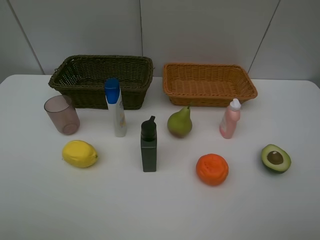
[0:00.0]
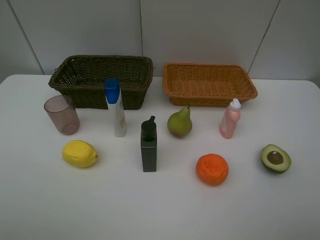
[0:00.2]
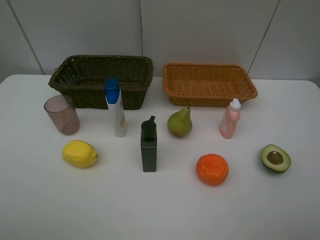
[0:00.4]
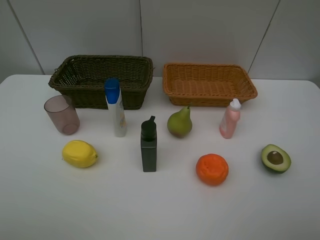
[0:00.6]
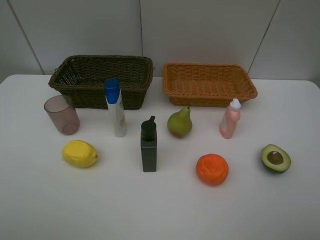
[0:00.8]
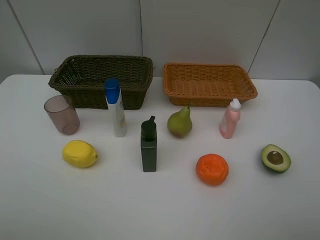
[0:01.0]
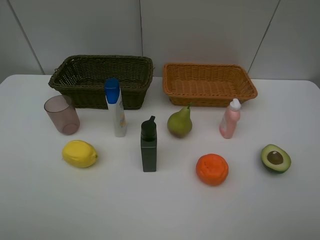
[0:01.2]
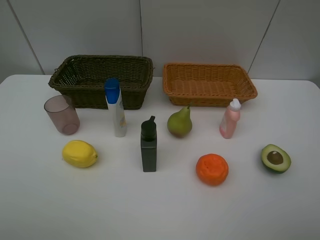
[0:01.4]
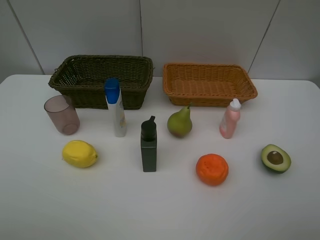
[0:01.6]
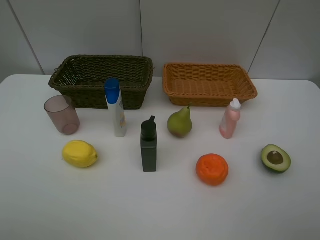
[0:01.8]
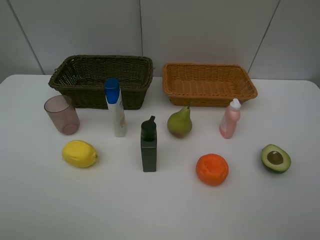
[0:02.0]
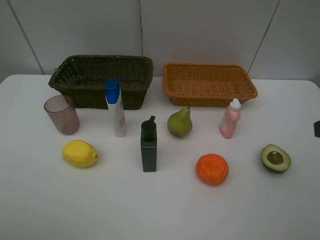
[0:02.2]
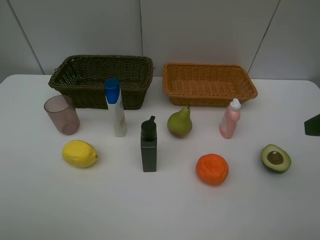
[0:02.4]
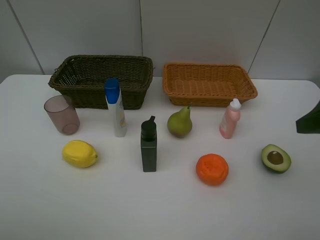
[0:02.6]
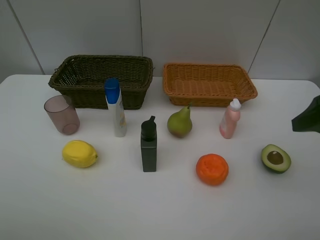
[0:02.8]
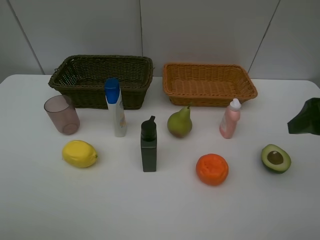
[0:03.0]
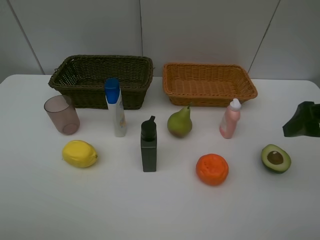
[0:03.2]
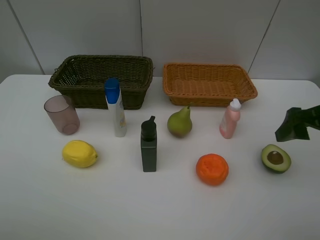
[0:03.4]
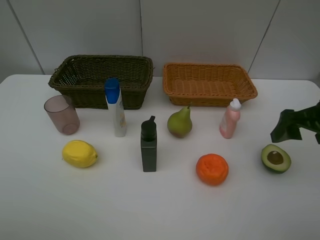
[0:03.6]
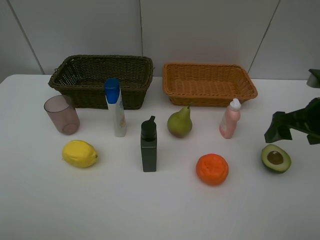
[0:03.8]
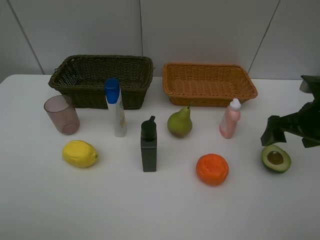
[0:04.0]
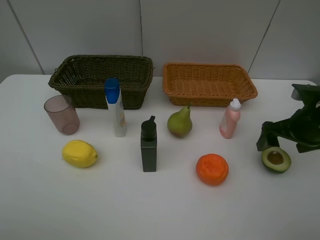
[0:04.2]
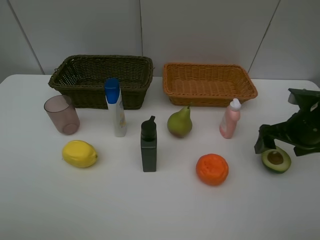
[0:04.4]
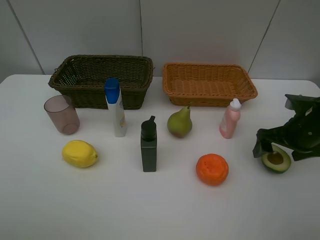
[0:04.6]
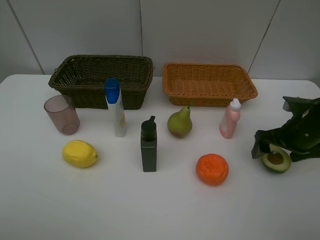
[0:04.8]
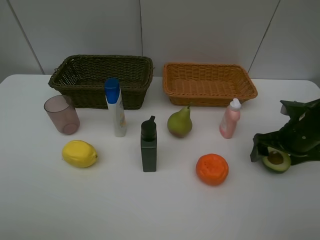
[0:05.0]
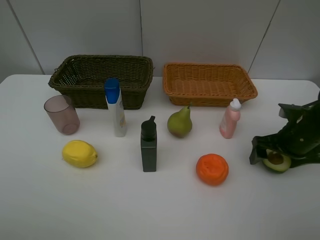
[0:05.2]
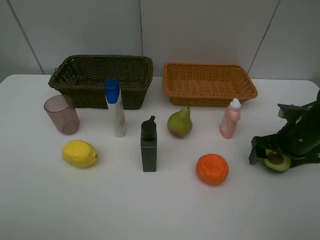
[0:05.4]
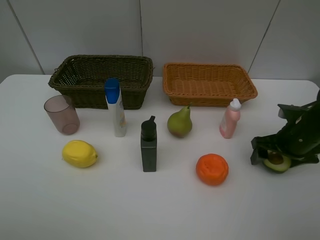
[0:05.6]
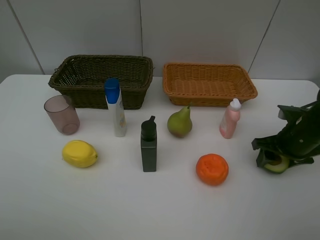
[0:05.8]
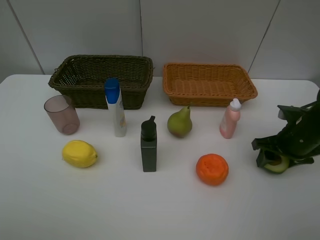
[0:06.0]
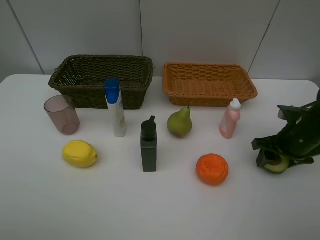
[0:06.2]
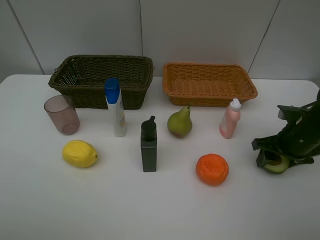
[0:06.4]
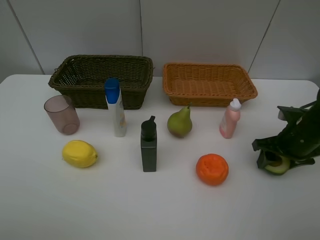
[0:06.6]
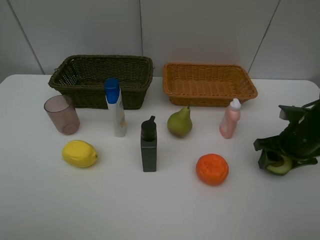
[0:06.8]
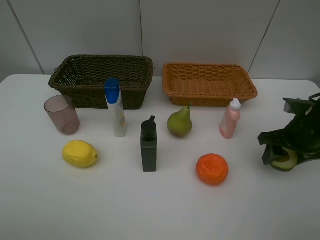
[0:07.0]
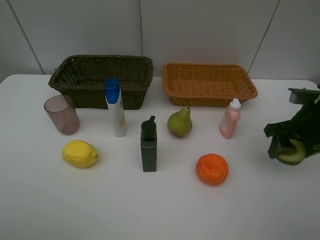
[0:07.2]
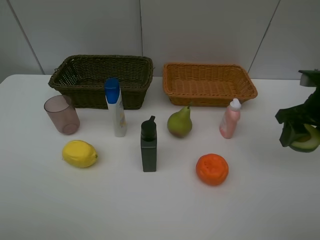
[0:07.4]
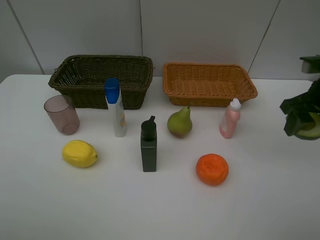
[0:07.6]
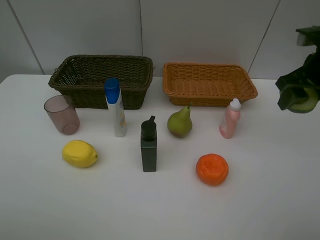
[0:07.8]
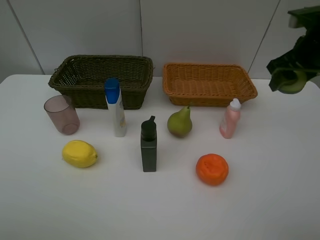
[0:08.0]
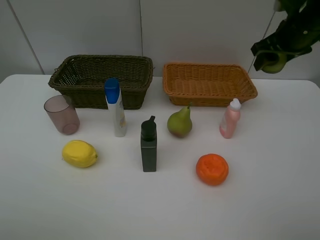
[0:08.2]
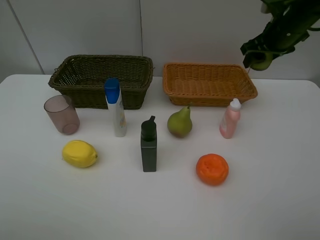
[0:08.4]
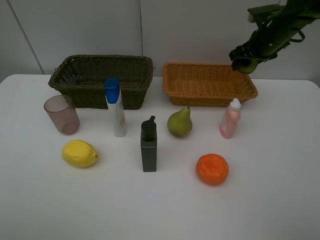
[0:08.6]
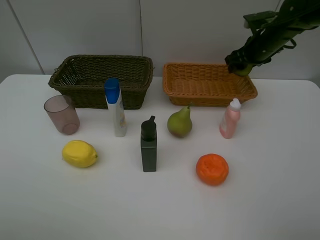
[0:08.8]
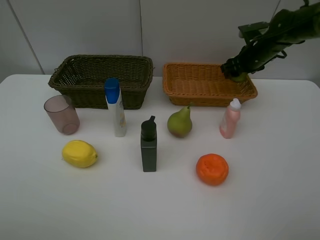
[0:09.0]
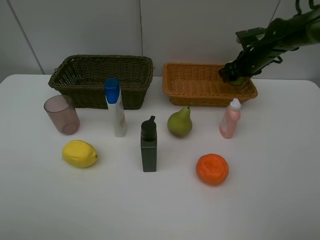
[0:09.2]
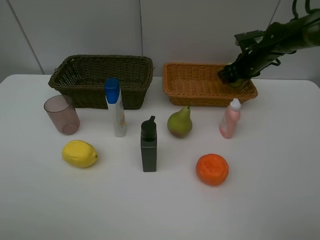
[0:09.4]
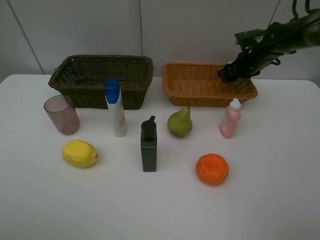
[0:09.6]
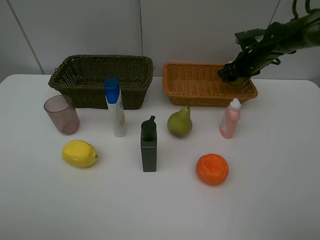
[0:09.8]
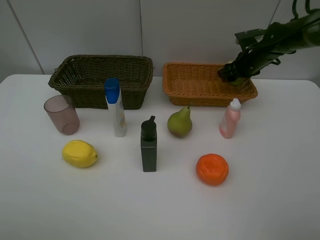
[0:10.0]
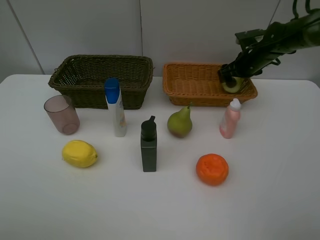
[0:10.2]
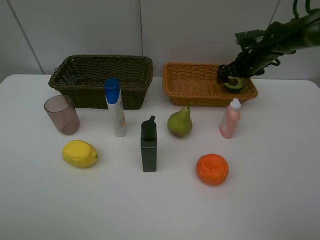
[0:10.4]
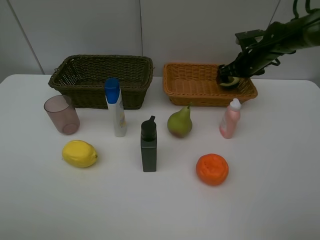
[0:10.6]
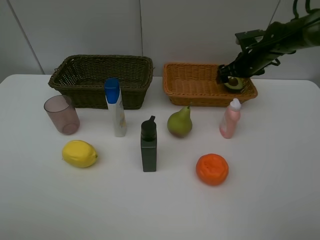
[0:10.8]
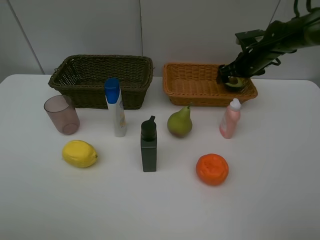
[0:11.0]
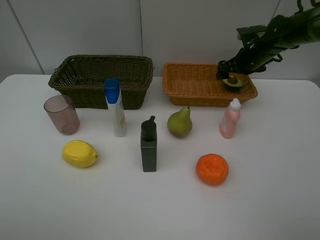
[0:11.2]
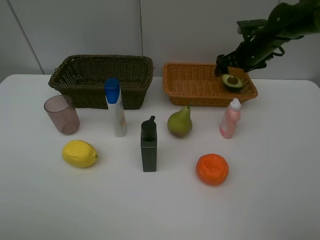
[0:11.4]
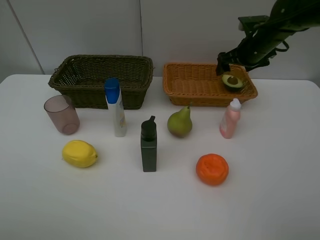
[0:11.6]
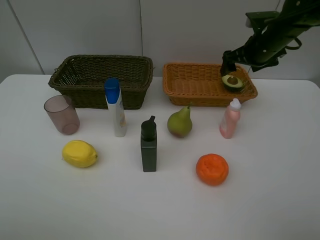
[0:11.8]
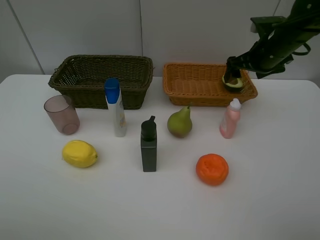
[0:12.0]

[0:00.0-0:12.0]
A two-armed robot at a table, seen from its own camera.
Task of the whole recording: Place multiple objects separately in different baskets.
Step, 0:00.0 to 0:07.0: Pick up the avocado with right gripper.
Step, 0:07.2 to 0:11.2: Place the avocado in the light basket with right gripper.
0:01.6 to 0:03.0: The right gripper goes about 15 cm forward.
0:03.0 to 0:04.4: The right gripper travels downward and forward by approximately 15 cm.
0:04.4 to 0:06.0: The right gripper closes its fingers.
0:06.0 to 0:07.6: The right gripper goes approximately 10 cm upward.
0:07.6 to 0:09.0: The right gripper travels forward by roughly 20 cm.
0:09.0 to 0:10.4: The right gripper opens up.
0:10.4 to 0:12.0: The right gripper goes about 10 cm backward and upward.

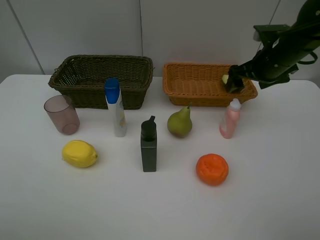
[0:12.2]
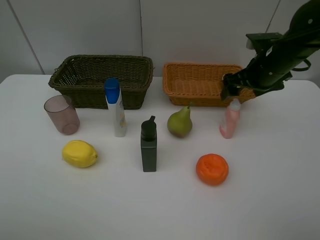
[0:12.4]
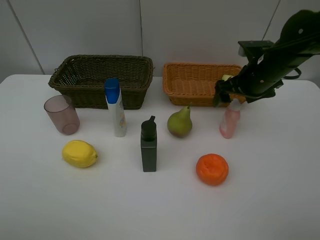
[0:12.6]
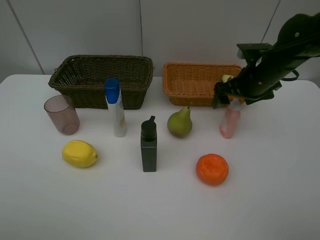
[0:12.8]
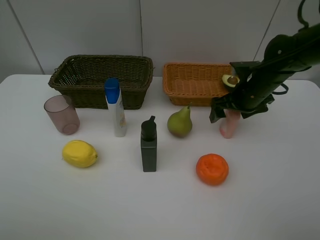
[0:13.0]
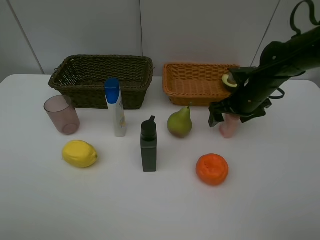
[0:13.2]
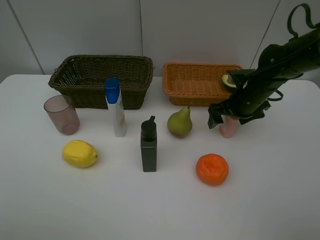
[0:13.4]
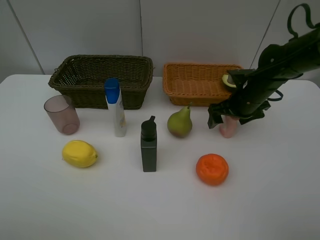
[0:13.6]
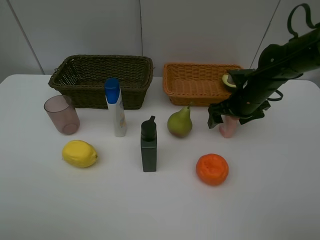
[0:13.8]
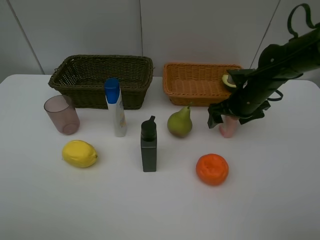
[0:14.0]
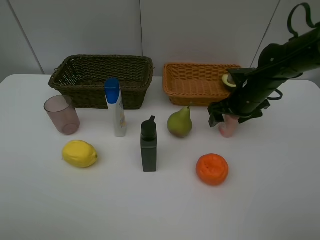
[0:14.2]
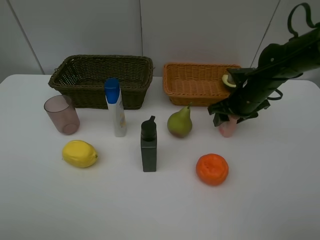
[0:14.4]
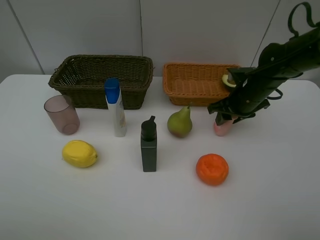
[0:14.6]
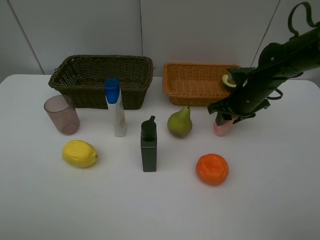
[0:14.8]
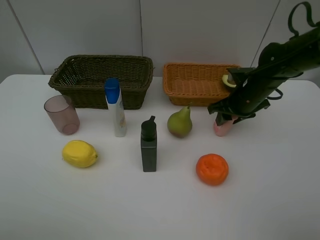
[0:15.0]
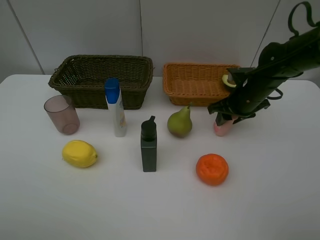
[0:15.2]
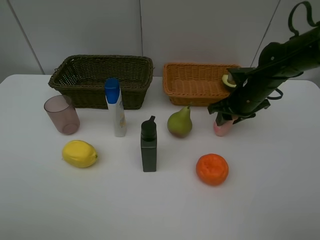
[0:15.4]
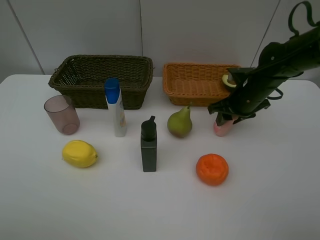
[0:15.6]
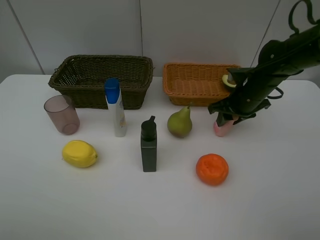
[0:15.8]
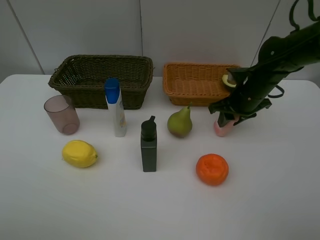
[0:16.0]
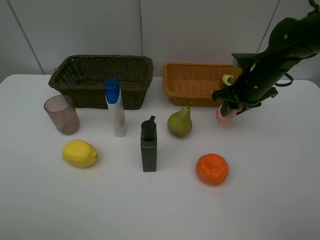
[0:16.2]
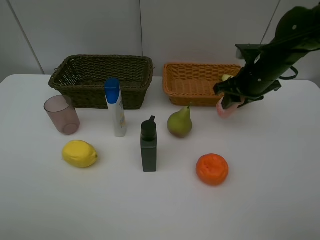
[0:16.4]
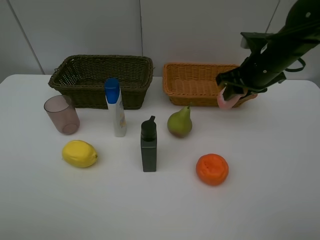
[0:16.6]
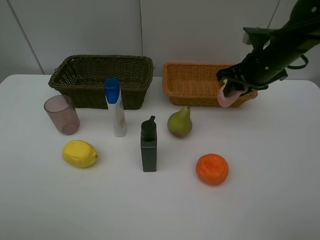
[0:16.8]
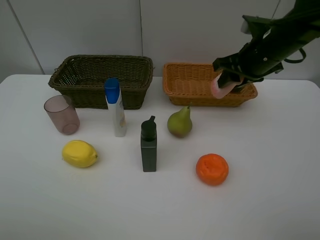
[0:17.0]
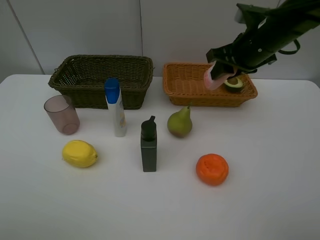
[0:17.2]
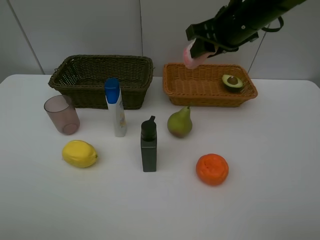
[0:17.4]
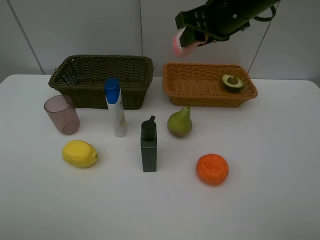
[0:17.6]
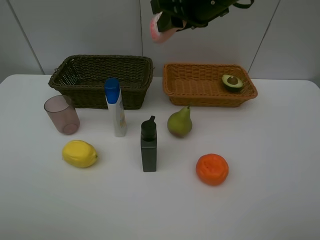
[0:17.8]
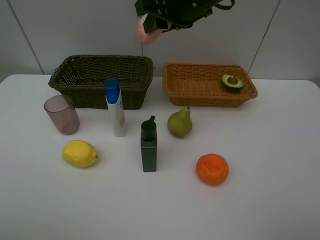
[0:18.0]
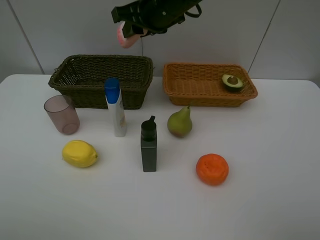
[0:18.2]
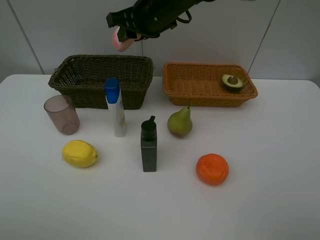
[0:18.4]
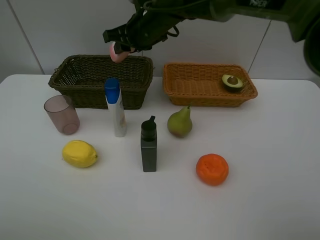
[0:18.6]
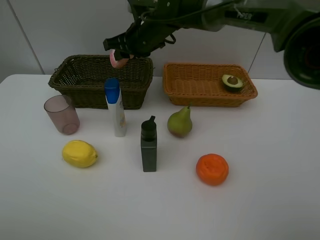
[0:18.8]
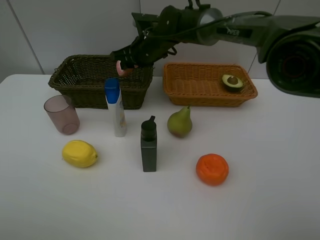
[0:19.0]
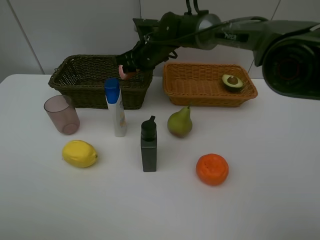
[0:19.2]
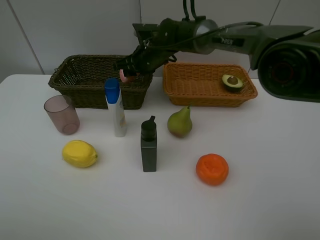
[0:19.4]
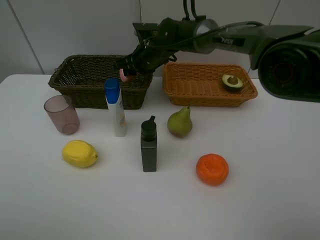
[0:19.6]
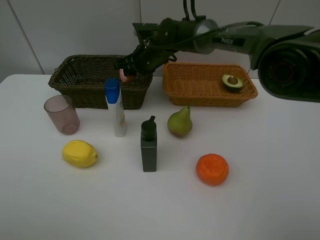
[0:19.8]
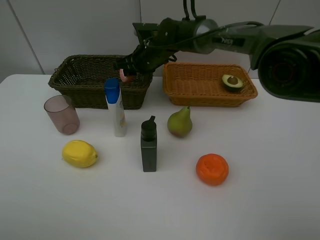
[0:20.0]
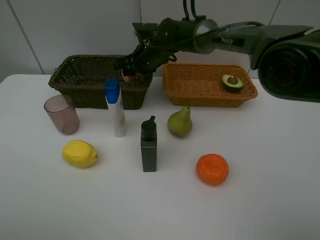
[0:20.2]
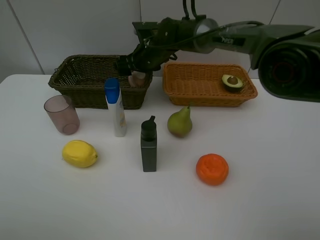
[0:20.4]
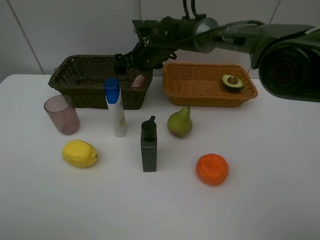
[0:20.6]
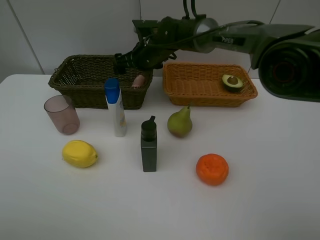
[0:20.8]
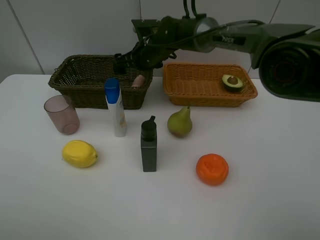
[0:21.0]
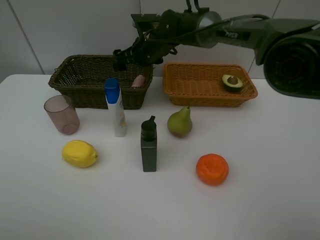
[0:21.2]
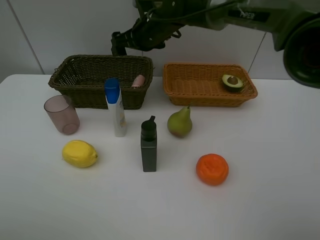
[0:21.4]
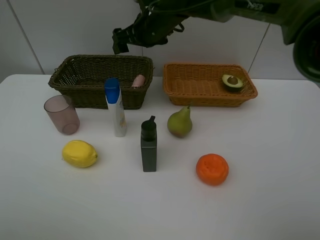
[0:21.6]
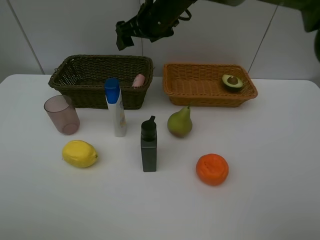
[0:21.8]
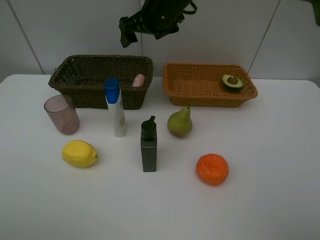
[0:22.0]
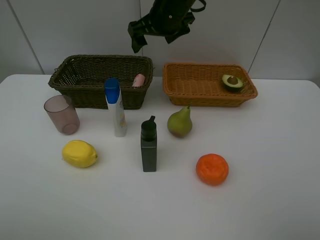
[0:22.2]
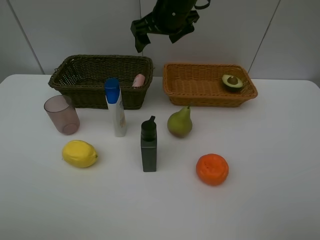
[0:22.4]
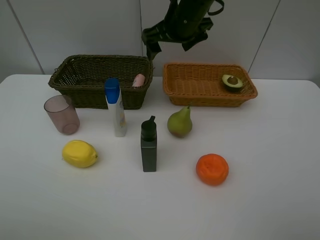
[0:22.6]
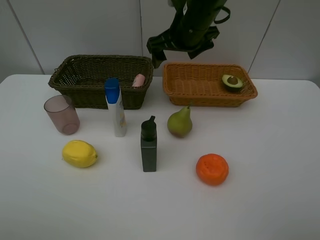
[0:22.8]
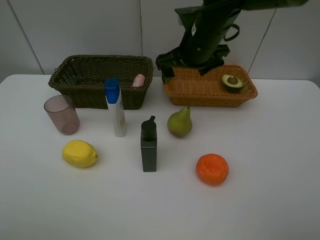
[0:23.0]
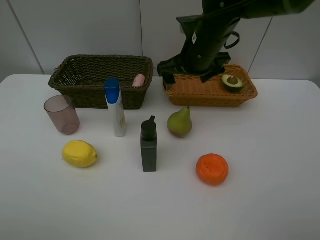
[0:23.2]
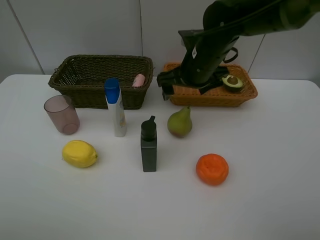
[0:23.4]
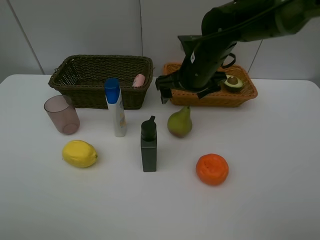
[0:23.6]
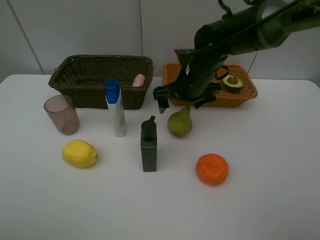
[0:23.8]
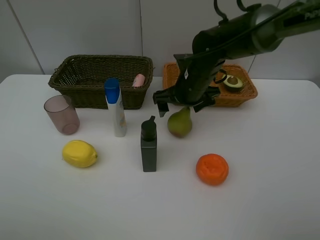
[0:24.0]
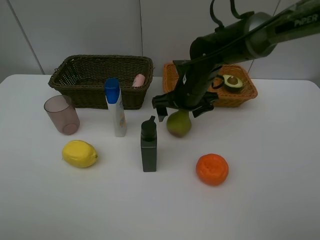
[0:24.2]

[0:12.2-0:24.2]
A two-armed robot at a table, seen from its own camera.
Task of the whole recording: Place multiple objects separately in different baskets.
Step, 0:12.2 to 0:16.2: Pick up the laundry detergent with right gripper.
Step, 0:16.4 to 0:20.6: Place the laundry detergent in the dark basket with right gripper.
0:12.2 to 0:13.8: The right gripper travels downward by some 10 cm.
0:13.8 to 0:15.2: The right gripper closes up.
0:15.2 to 0:16.6: The right gripper heads upward, covering roughly 10 cm.
0:16.6 to 0:18.2: The right gripper heads to the left, covering some 20 cm.
0:18.2 to 0:19.8: The right gripper moves downward and forward, about 15 cm.
0:19.8 to 0:21.2: The right gripper opens its fingers.
0:21.2 to 0:22.6: The right gripper moves upward, to the right and backward, roughly 15 cm.
0:22.6 to 0:24.2: The right gripper travels downward by approximately 15 cm.
